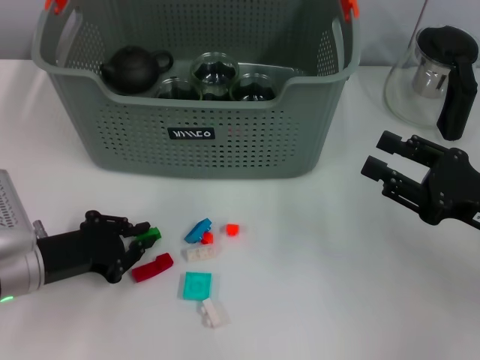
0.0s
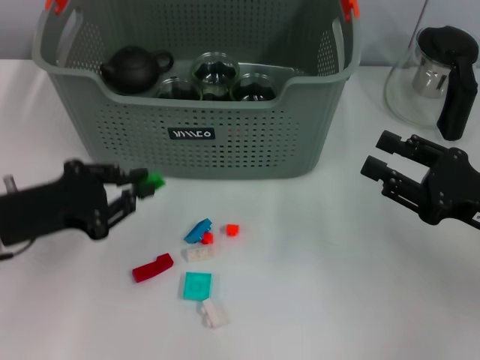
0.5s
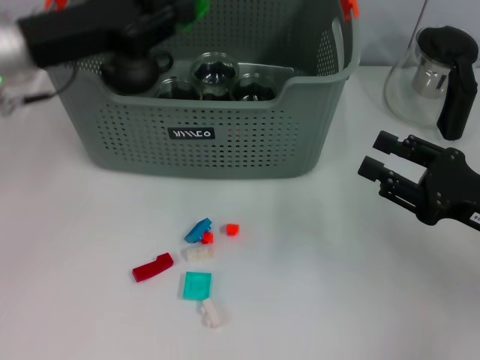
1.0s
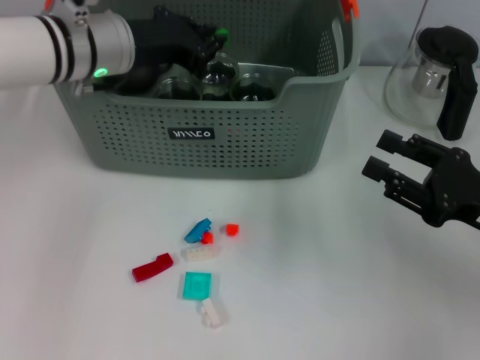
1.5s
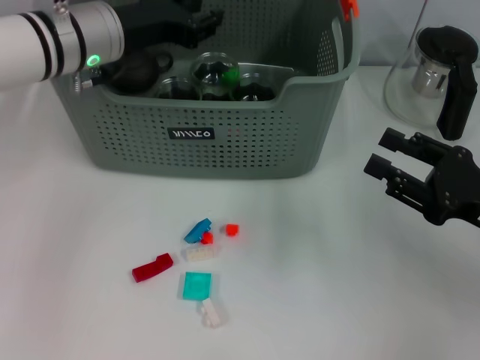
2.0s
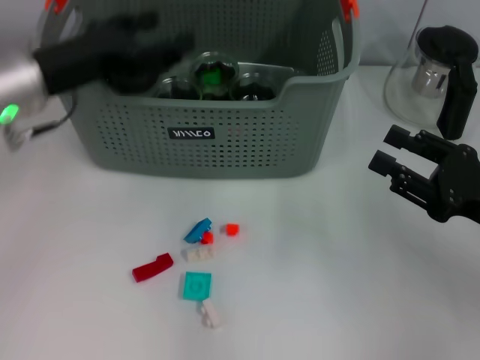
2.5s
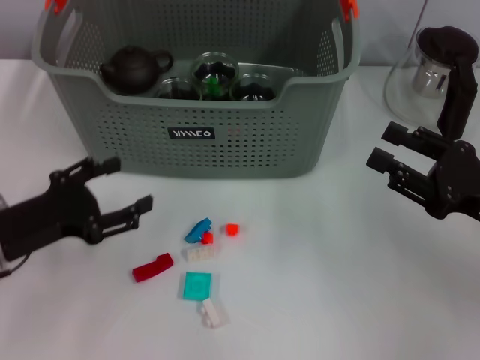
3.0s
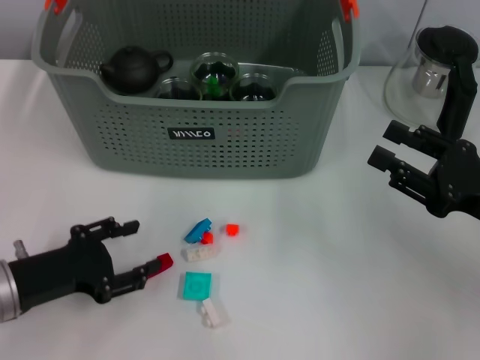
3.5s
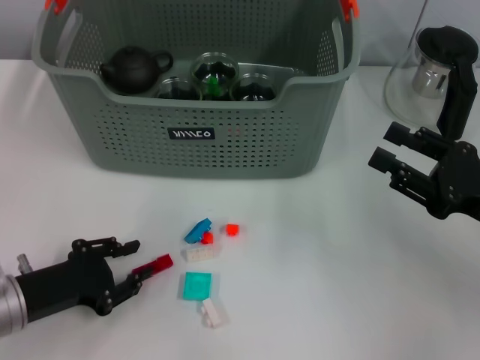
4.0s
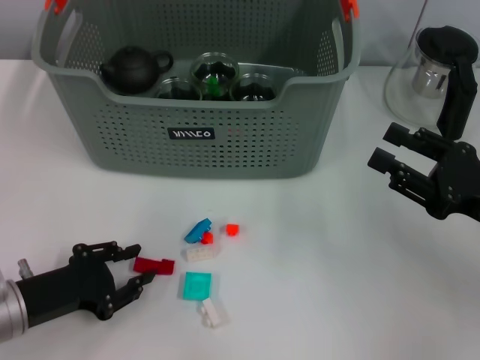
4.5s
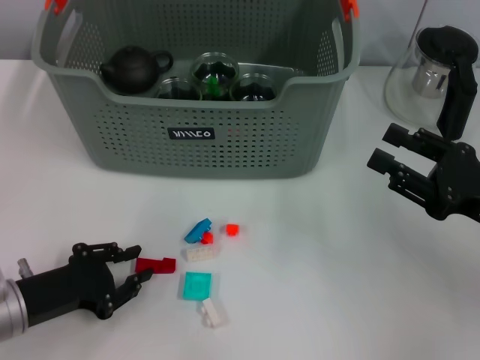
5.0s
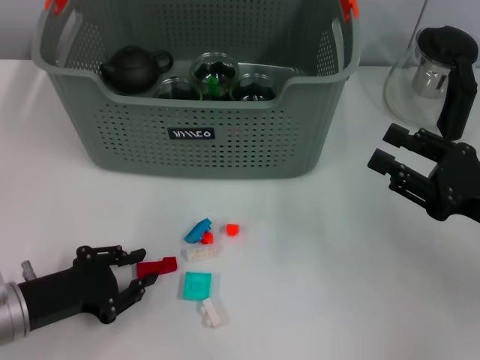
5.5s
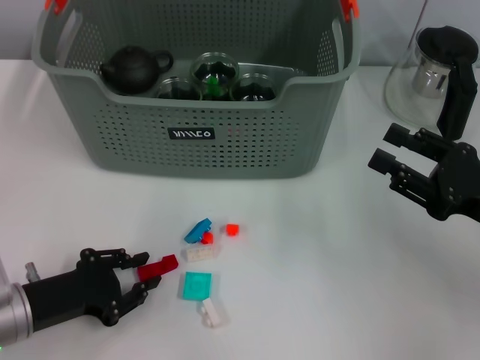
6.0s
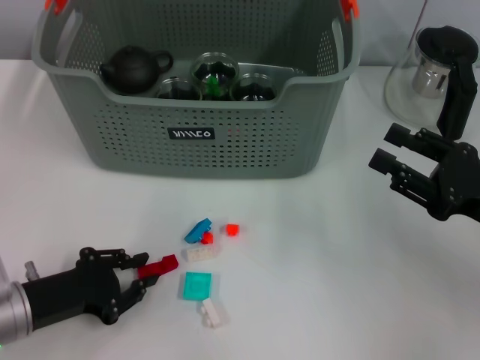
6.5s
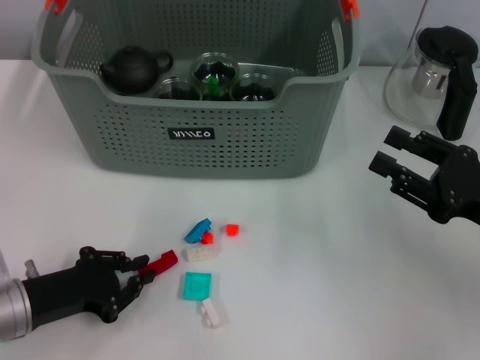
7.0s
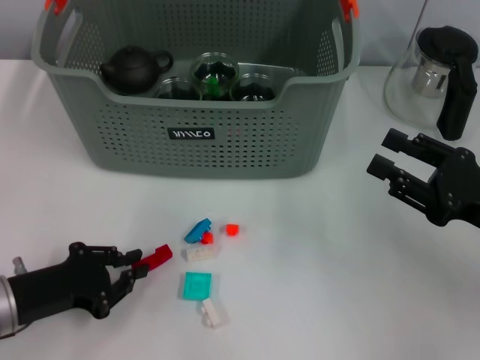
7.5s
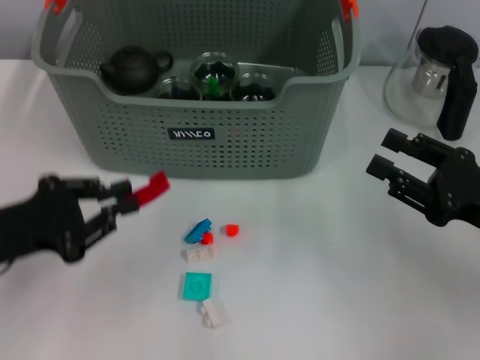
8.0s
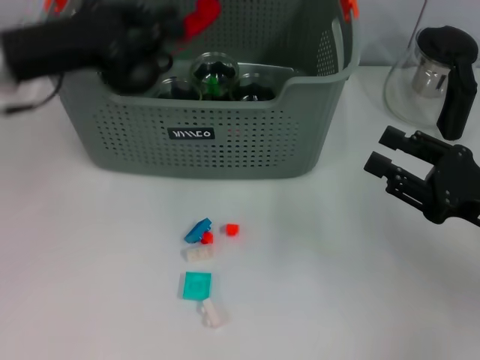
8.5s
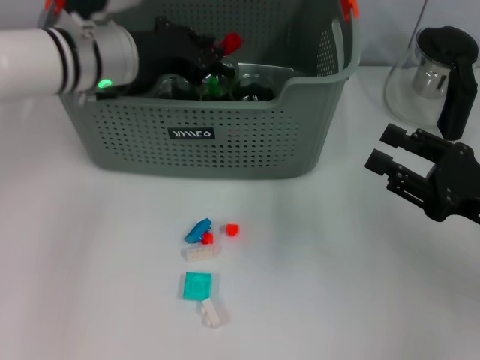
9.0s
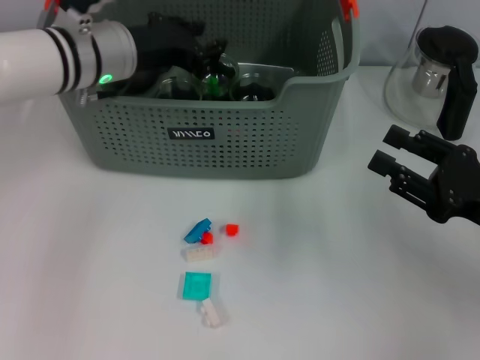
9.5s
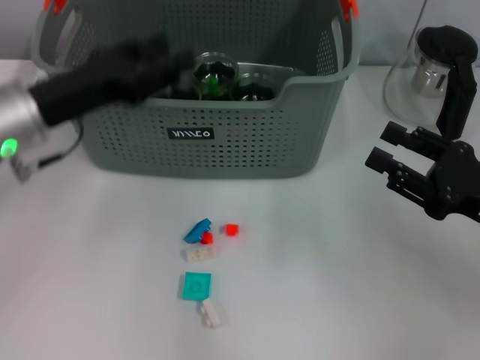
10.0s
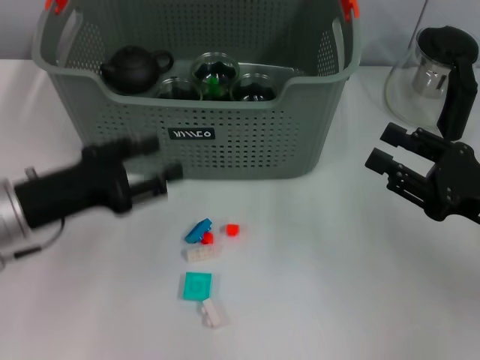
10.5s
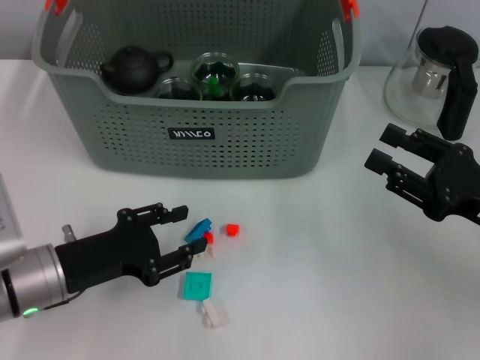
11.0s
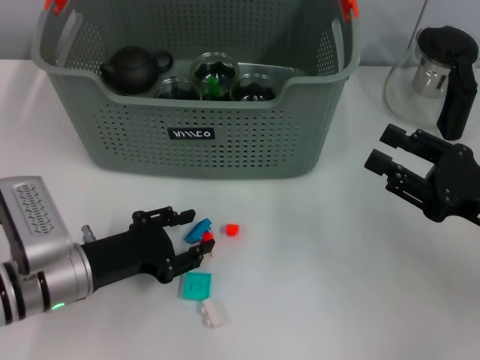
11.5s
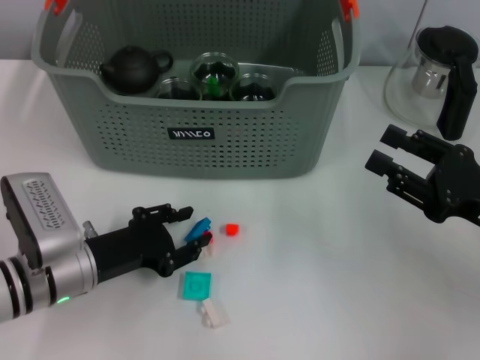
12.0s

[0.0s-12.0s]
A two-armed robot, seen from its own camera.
Task of the whole recording: pick up the teacup on the table and place it into the storage bin, pick up the block on the table and place it into the storage bin.
Step, 0.0s to 1.5s: Place the green block in the storage box with left gripper.
Step, 2.5s to 7.0s: Grasp the red block with left gripper.
Step, 7.5s to 9.0s: Place the red block in the storage box with left gripper.
0.0s to 2.0s: The left gripper goes some 25 cm forward, upward and to the right.
2.0s to 4.0s: The left gripper is displaced backward, downward and to the left by about 25 cm, and opens, then closes again.
4.0s to 6.0s: Both grippers stay put.
6.0s to 8.0s: The left gripper is displaced upward by roughly 10 cm.
8.0s to 10.0s: The left gripper heads forward and to the right, covering roughly 10 cm, and opens.
10.0s to 12.0s: The left gripper is displaced downward and backward by approximately 15 cm.

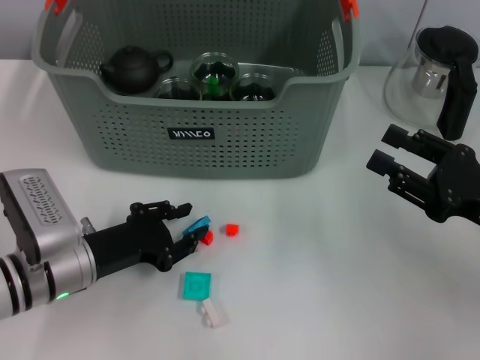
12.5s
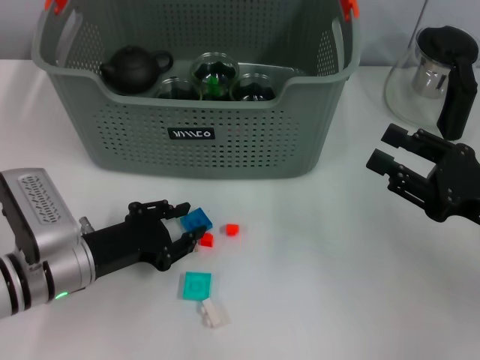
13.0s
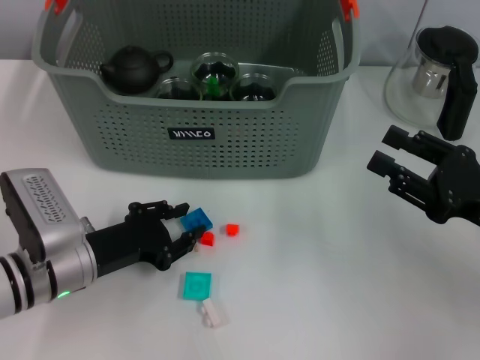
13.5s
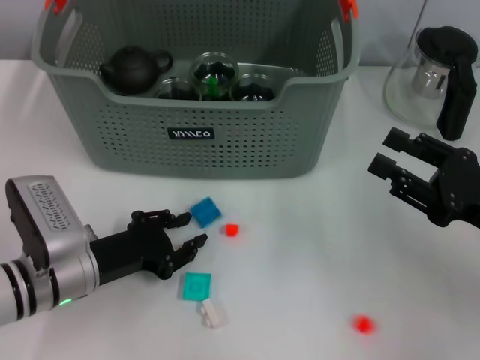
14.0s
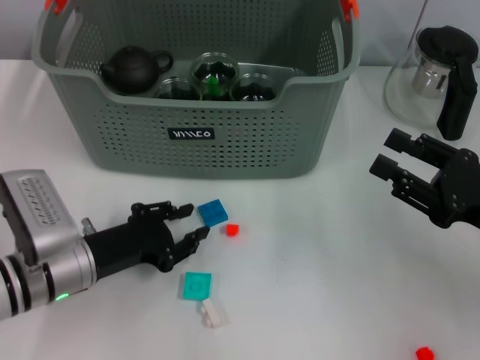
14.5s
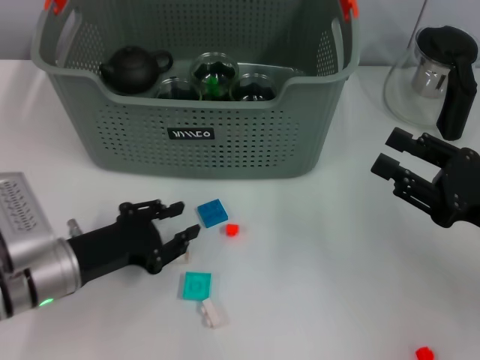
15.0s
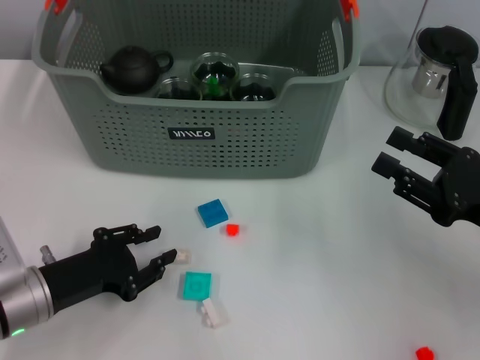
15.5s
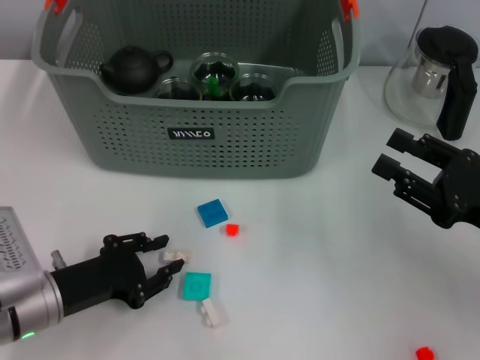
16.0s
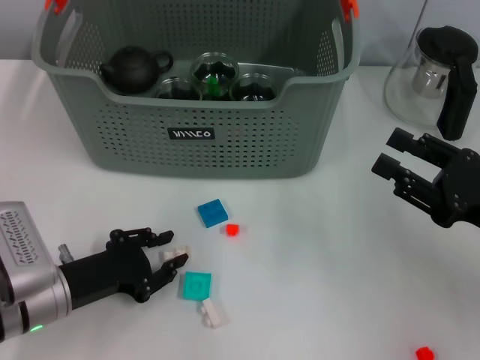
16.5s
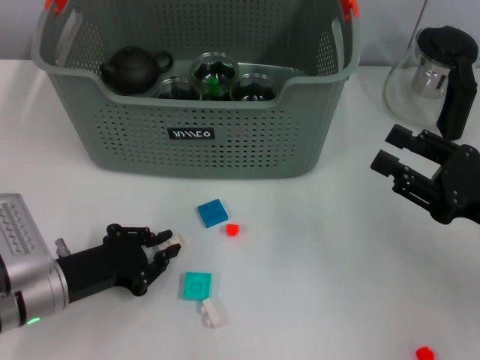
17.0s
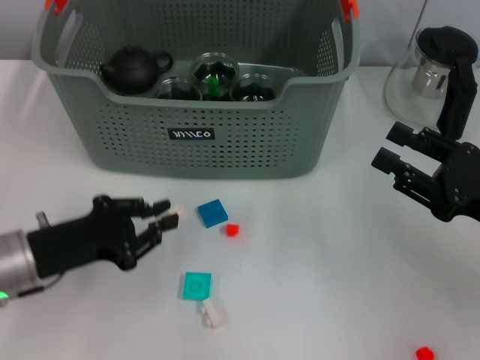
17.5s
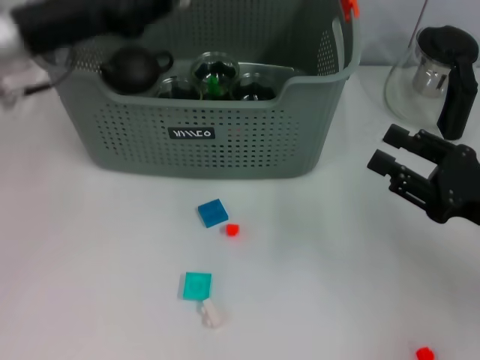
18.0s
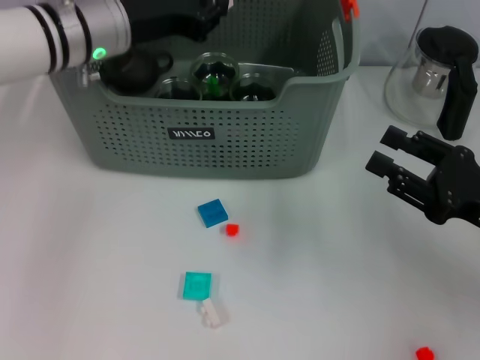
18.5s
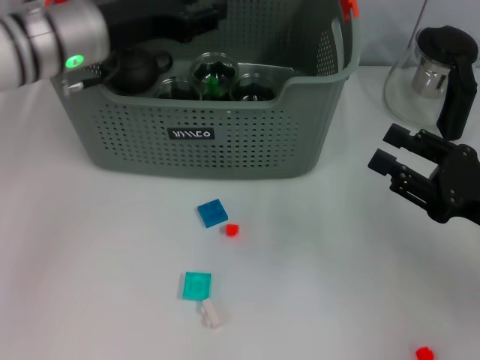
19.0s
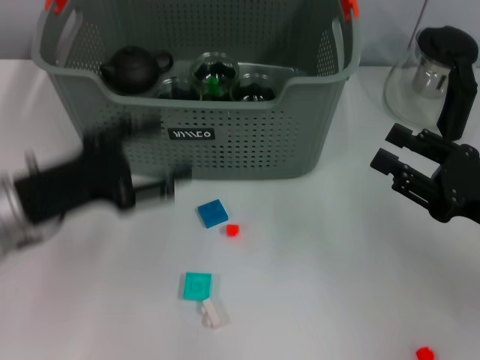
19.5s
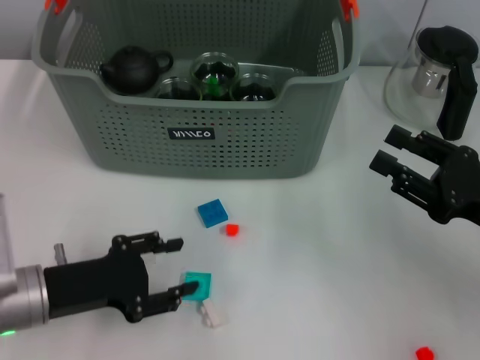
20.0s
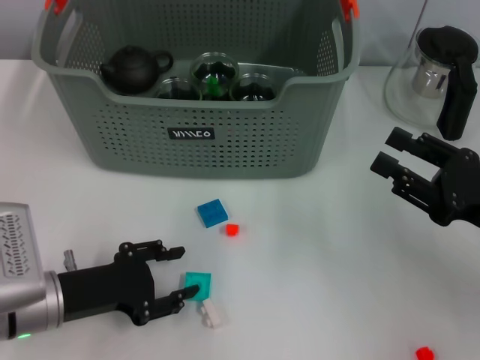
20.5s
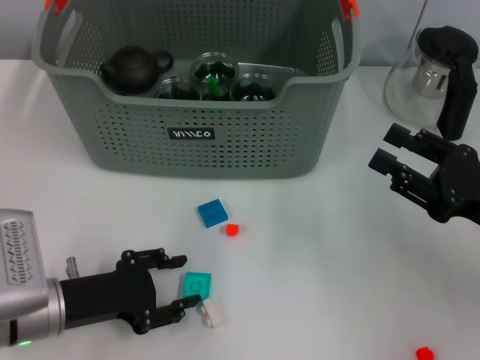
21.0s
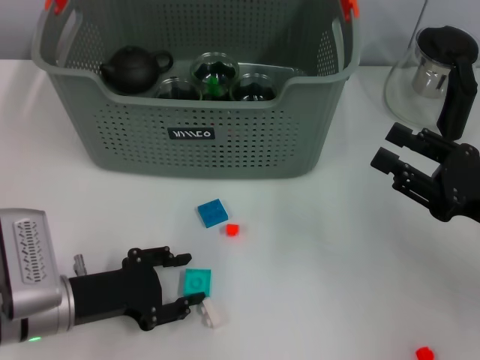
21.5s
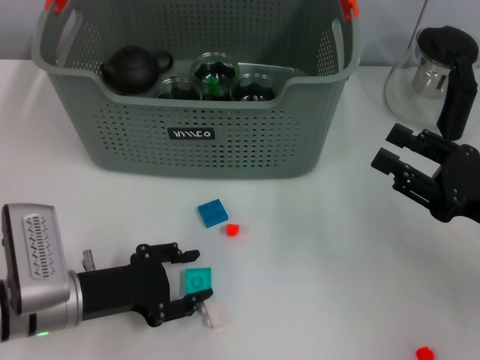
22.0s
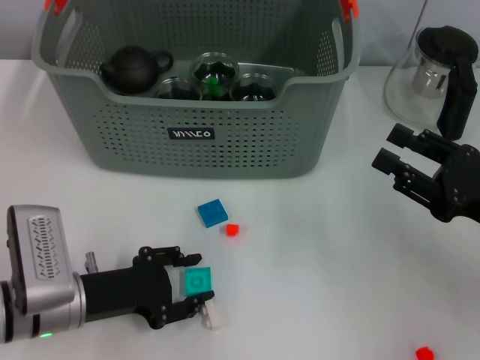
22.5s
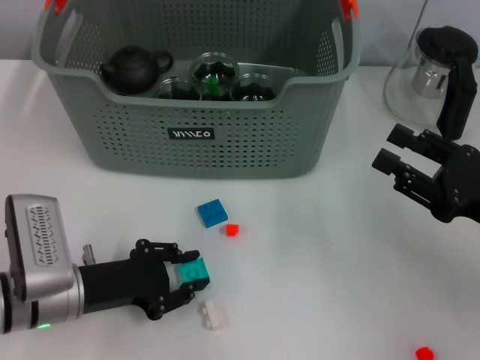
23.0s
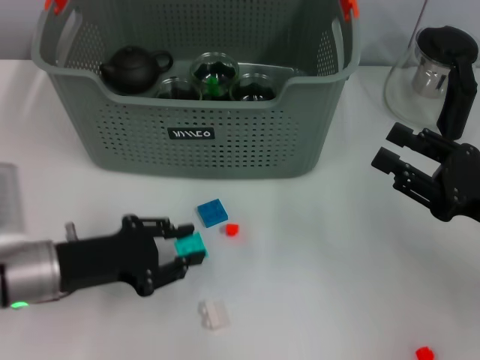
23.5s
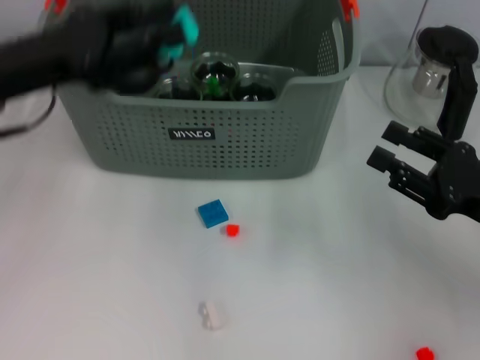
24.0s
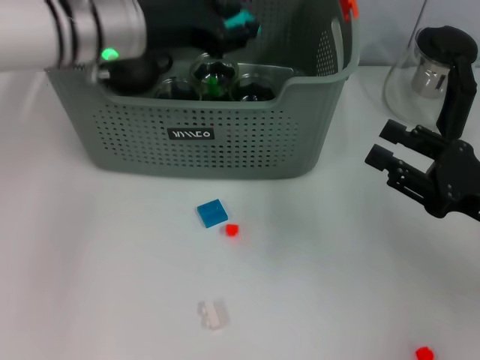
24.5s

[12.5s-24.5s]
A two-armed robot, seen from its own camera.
Task of the whole recording: pick up the teacup on the table and place it into the storage bin, pick up the block on the table and place it into the storage bin.
Step, 12.5s to 17.0s: Grasp the white block with left gripper.
Step, 17.5s to 18.5s: Place the white block in the storage box with left gripper.
Step, 19.0s to 23.0s: Grasp the light blue block with left gripper.
12.5s to 14.5s: Both grippers stay put.
14.5s to 16.5s: There are only small adjustments of the grippers.
16.5s to 18.5s: The left gripper moves forward and upward, approximately 25 cm.
18.5s to 20.5s: The left gripper moves backward and downward, some 25 cm, and opens its fingers.
20.5s to 22.5s: There are only small adjustments of the grippers.
22.5s to 24.5s: The left gripper is displaced forward and upward by approximately 25 cm.

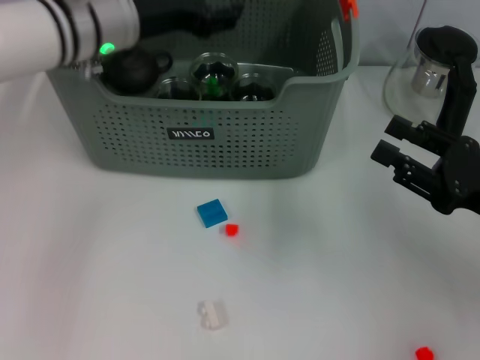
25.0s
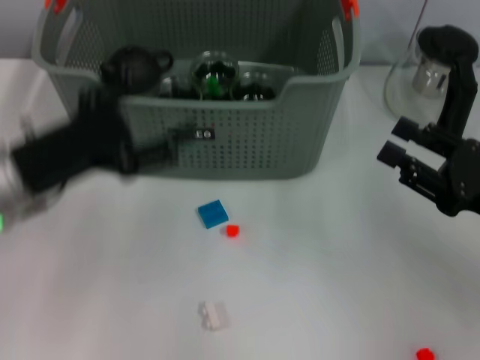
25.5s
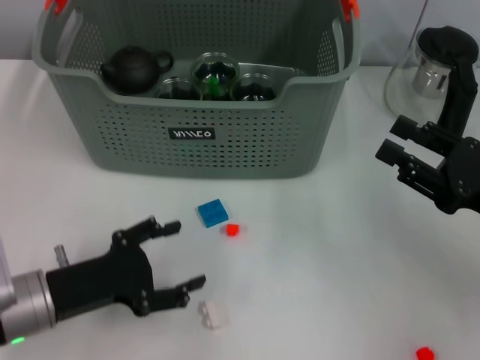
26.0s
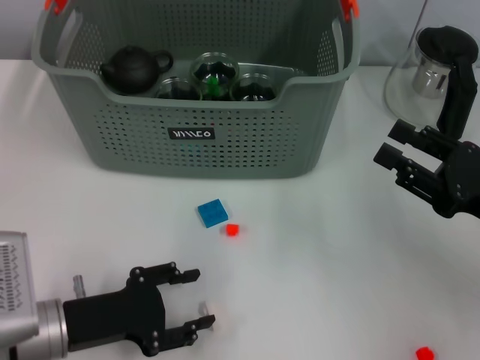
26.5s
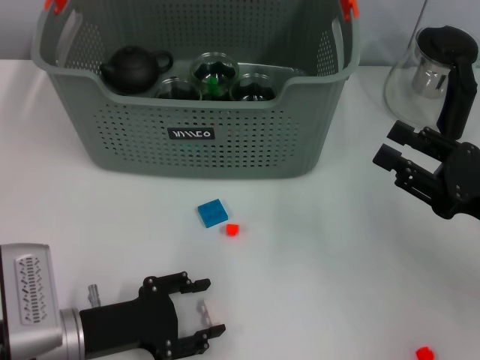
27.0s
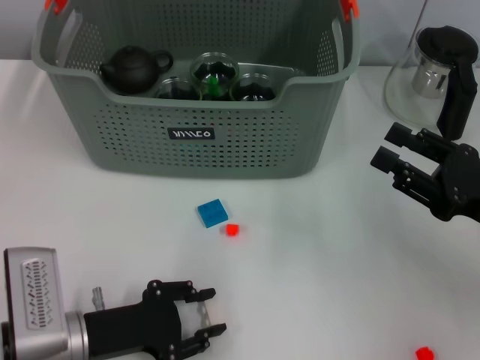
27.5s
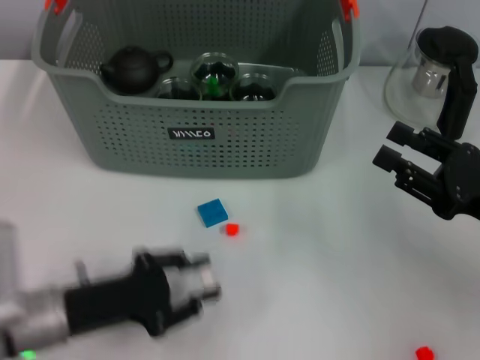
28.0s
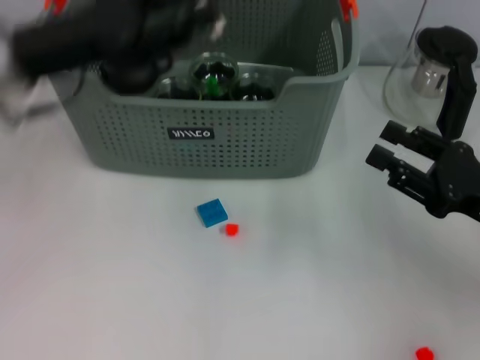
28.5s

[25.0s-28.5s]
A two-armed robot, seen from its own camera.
Task of the whole recording: pick up the teacup on the table and place it into the storage bin, pick up the block on the table and place it into the storage bin.
Step, 25.0s to 27.5s: Grasp the white block with left gripper.
25.0s to 27.0s: The left gripper travels backward and downward by roughly 30 cm.
27.0s to 28.5s: The left gripper heads upward and forward, covering about 25 cm.
